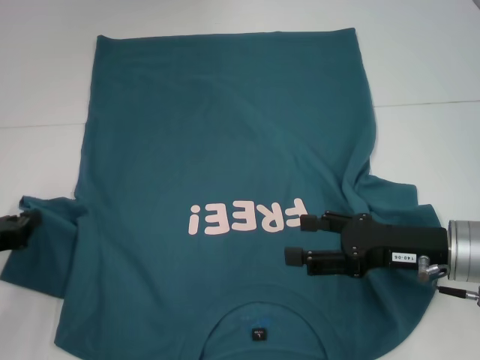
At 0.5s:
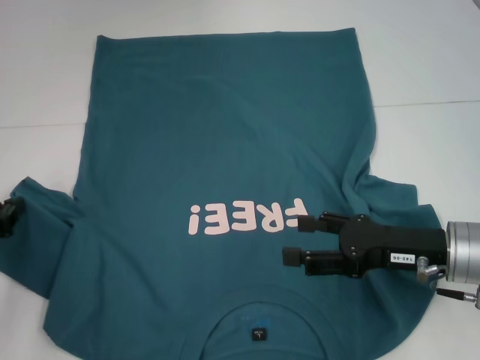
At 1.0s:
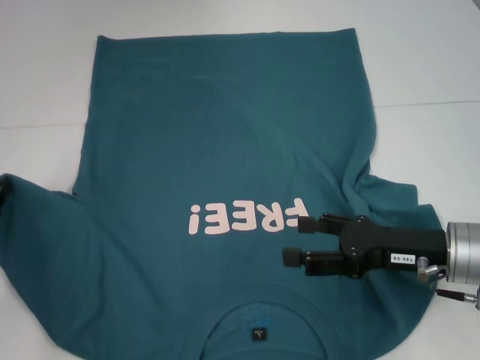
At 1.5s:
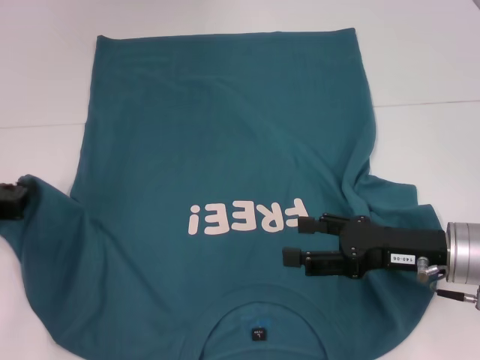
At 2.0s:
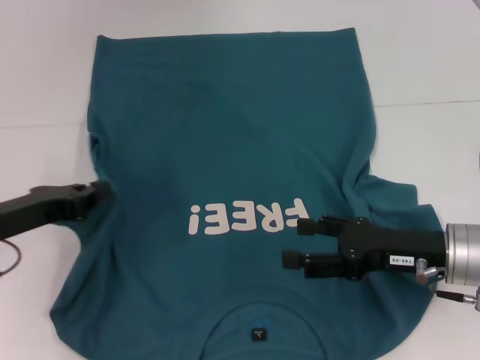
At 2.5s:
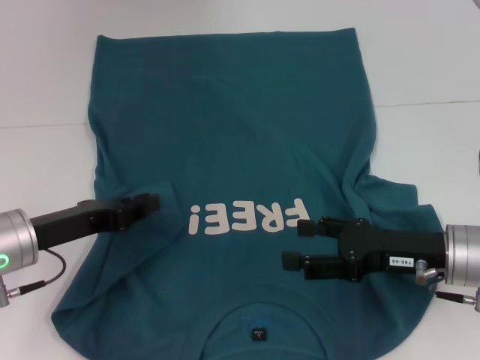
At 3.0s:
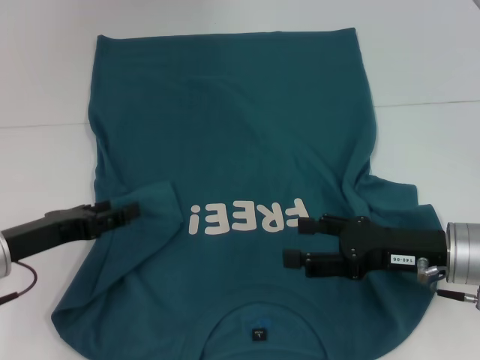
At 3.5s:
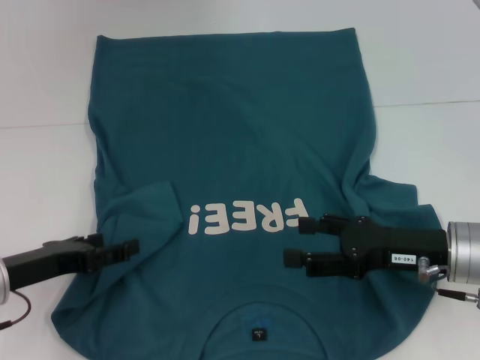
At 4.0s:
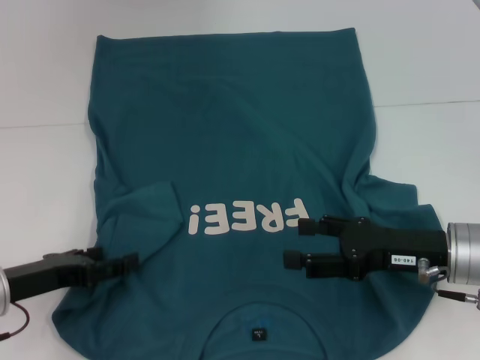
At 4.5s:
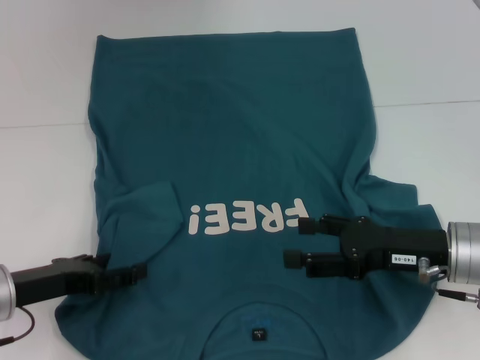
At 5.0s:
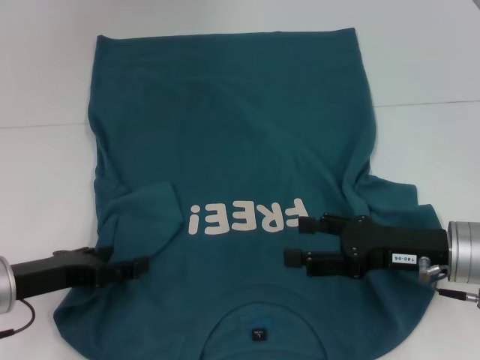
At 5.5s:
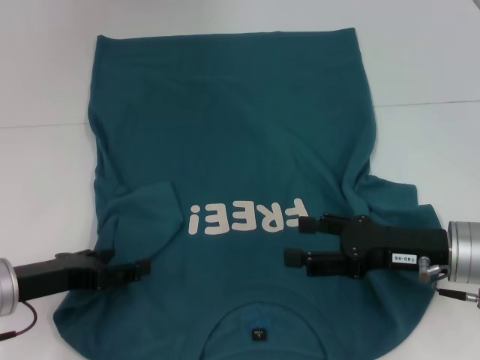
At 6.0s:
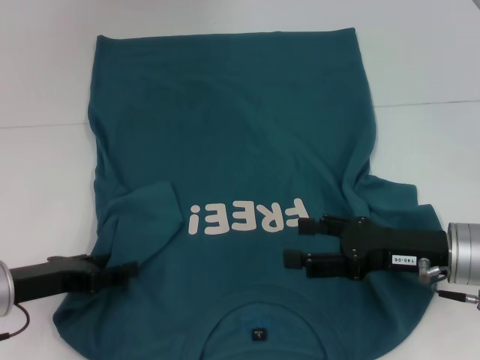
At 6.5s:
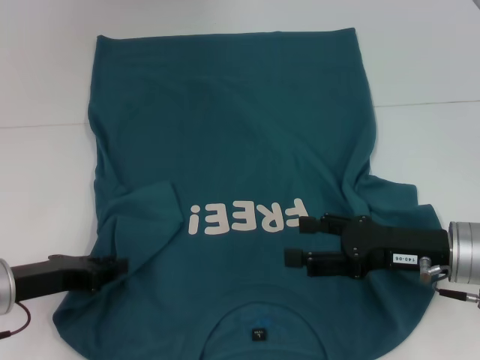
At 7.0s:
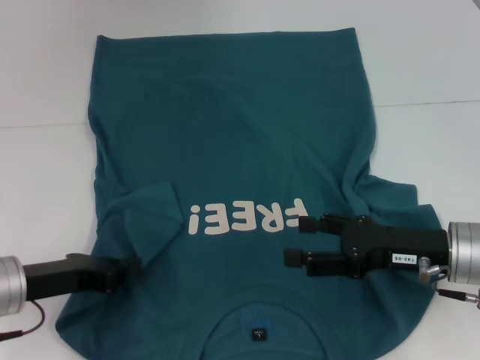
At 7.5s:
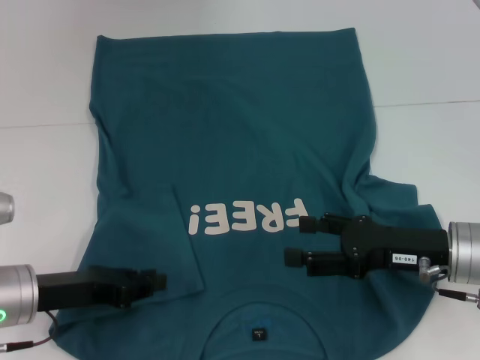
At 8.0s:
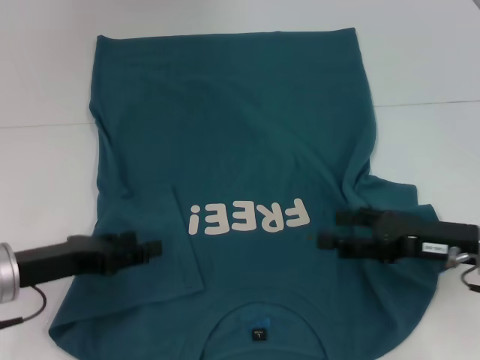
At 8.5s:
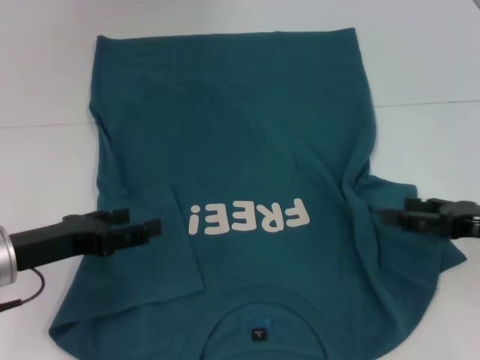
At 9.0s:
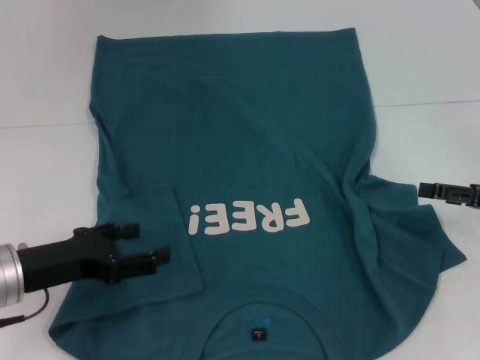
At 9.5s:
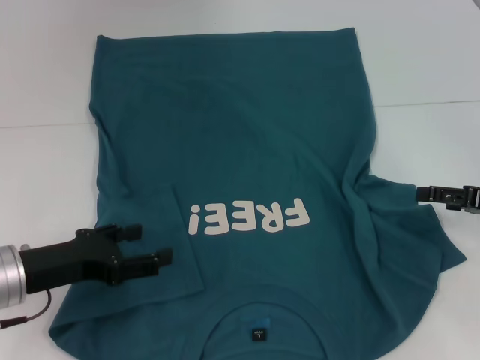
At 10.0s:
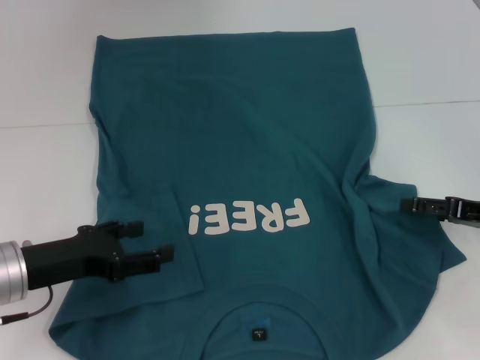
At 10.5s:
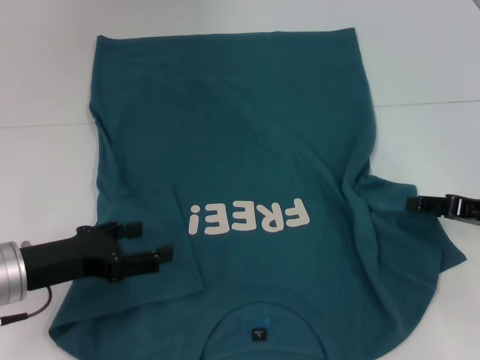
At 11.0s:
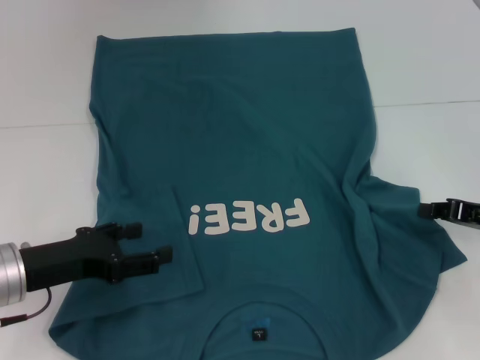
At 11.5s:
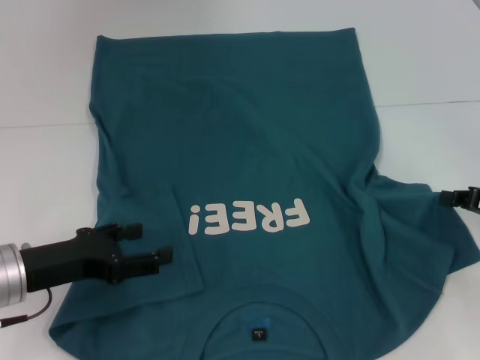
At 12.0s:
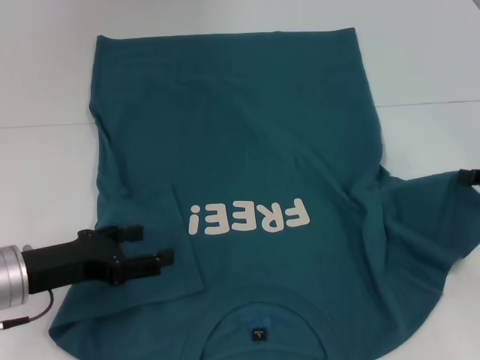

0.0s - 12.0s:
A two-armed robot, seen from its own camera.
Step, 0.0s - 7.5s: Fold the bottom left sleeve with your left hand.
0.0s - 2.0s: The left gripper is displaced to the right by roughly 5 cm.
2.0s - 4.0s: The left gripper ends up about 5 cm from where it was, and opens up.
4.0s - 6.0s: The grippers make only small movements.
6.0s - 8.0s: The left gripper closes its fingers.
8.0s - 10.0s: The left gripper opens its fingers. The right gripper goes approximately 10 cm to the right.
10.0s - 12.0s: The right gripper closes up.

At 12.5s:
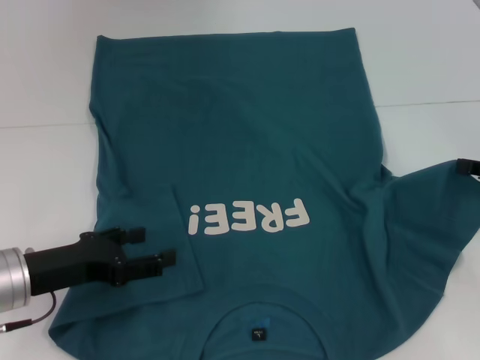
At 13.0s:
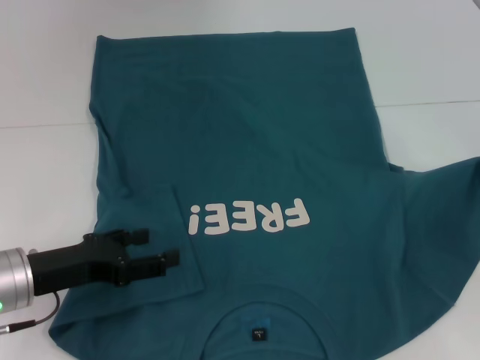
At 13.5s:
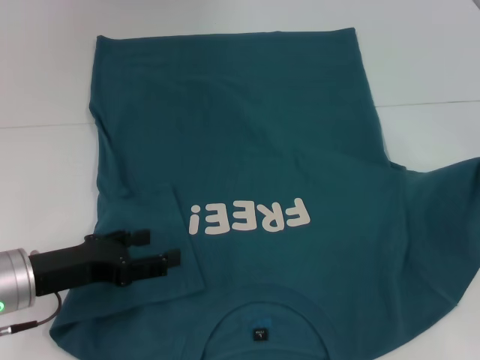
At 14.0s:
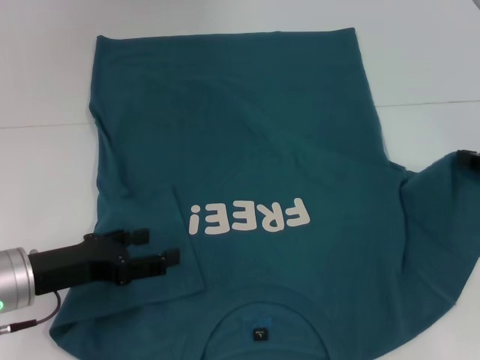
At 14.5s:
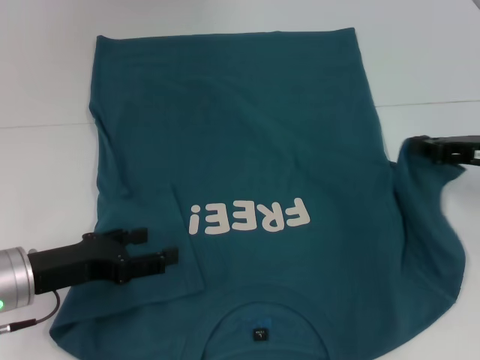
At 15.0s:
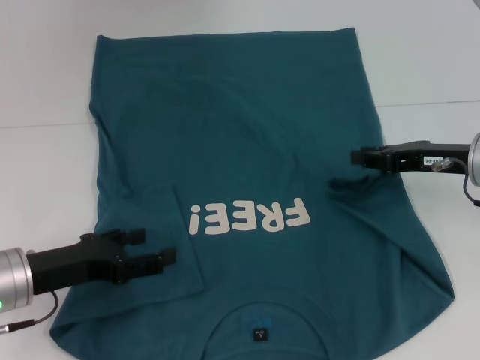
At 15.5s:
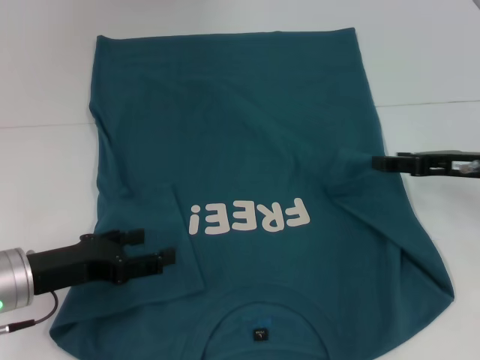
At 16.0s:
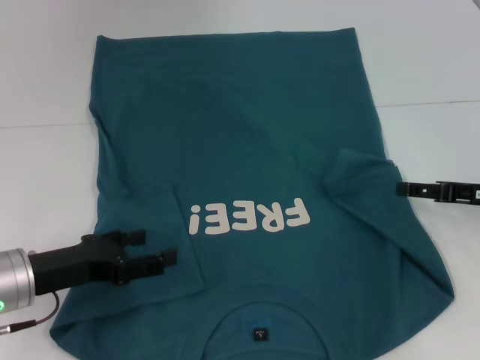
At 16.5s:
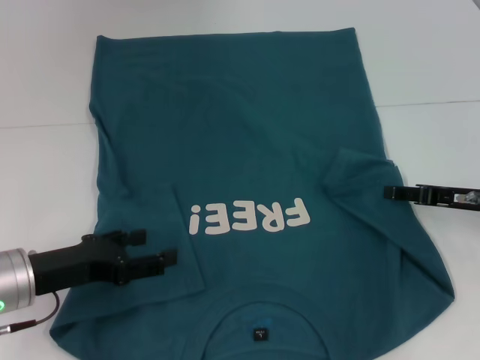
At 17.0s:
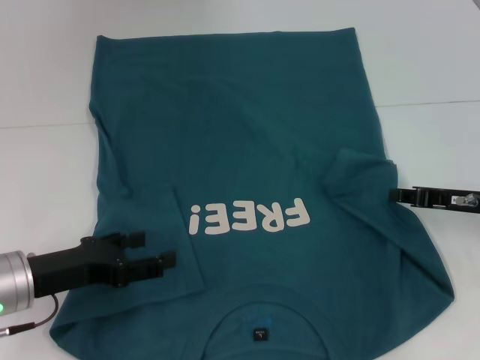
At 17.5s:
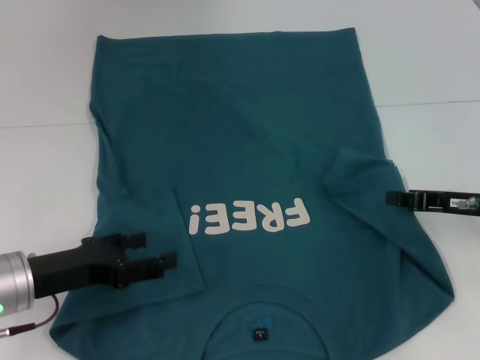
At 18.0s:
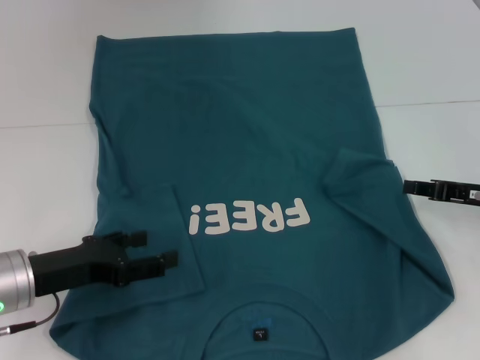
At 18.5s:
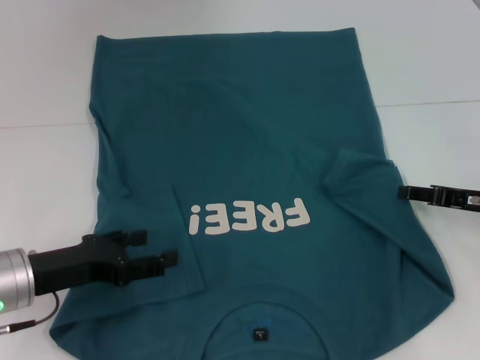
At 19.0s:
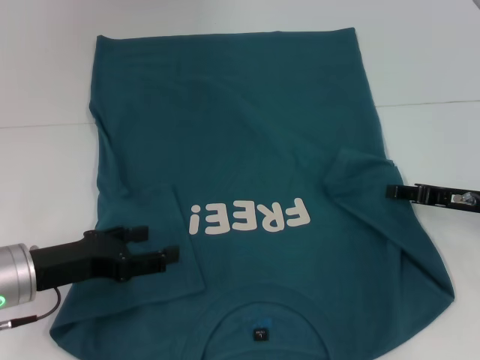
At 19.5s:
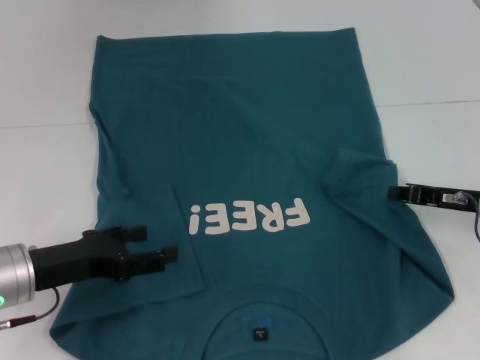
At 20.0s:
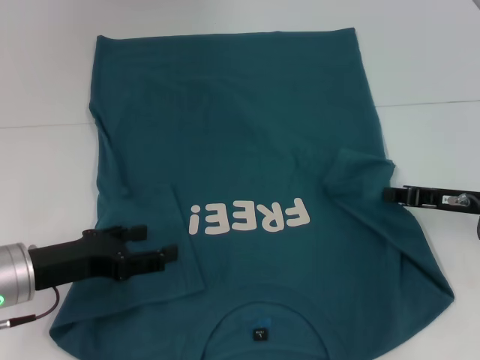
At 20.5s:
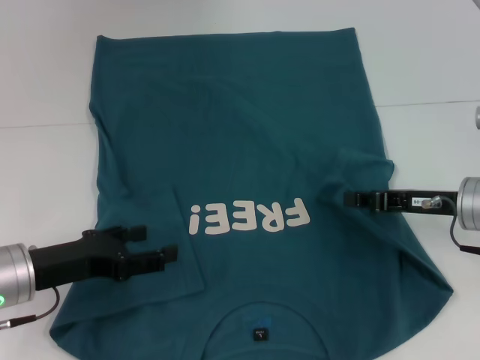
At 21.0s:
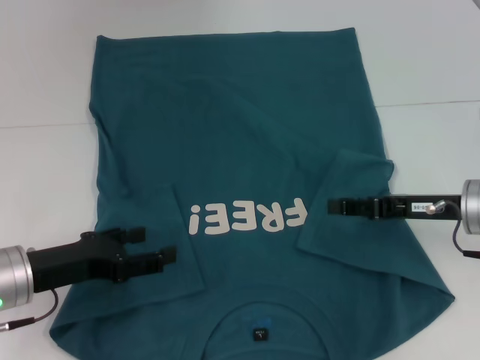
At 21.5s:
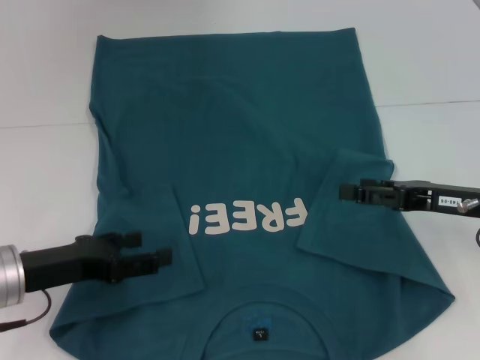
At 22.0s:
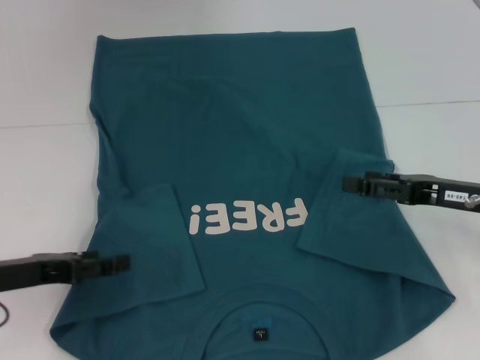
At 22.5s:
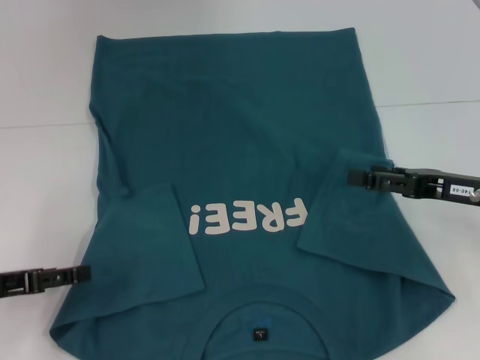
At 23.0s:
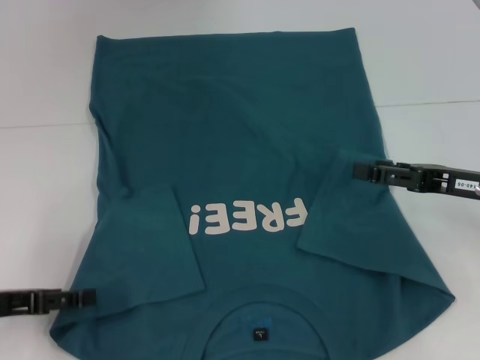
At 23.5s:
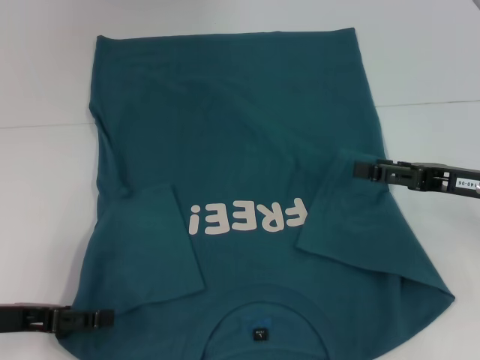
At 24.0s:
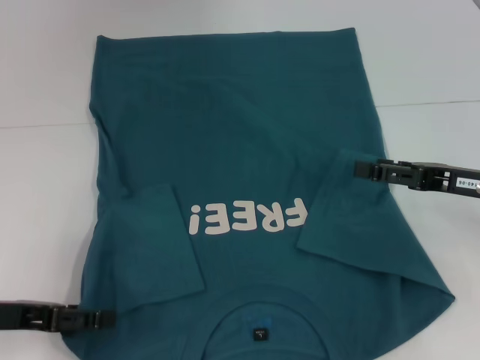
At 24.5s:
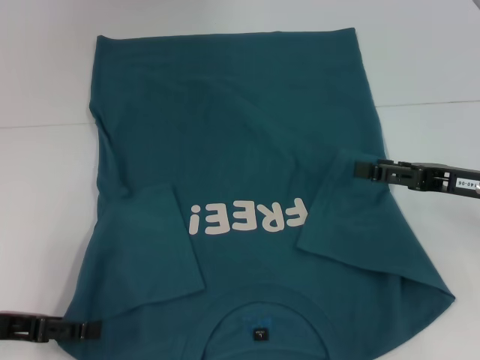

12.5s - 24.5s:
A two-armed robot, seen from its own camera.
Step, 12.5s - 21.0s: Fold the bottom right sleeve to the right.
12.5s - 14.5s: The right gripper moves about 5 cm.
14.5s - 16.5s: The right gripper shifts about 5 cm downward, and opens its fingers.
18.5s - 20.5s: The right gripper is displaced to the left by some 5 cm, and closes its fingers.
20.5s - 22.5s: The left gripper is displaced to the left by approximately 5 cm, while the right gripper opens its fingers.
22.5s - 24.5s: The grippers move only a little.

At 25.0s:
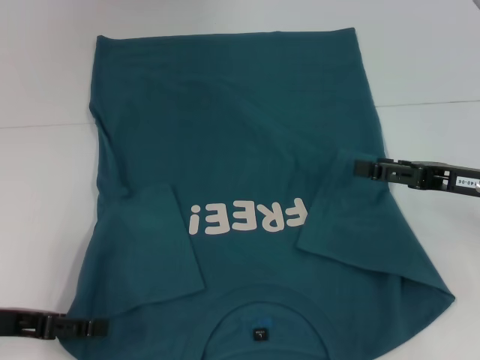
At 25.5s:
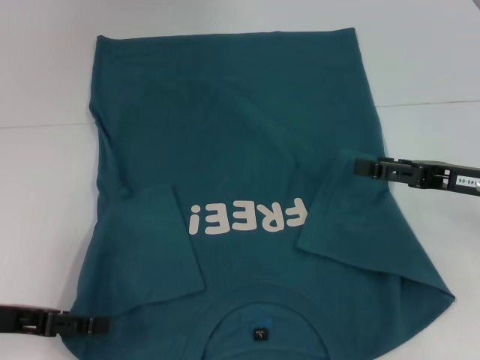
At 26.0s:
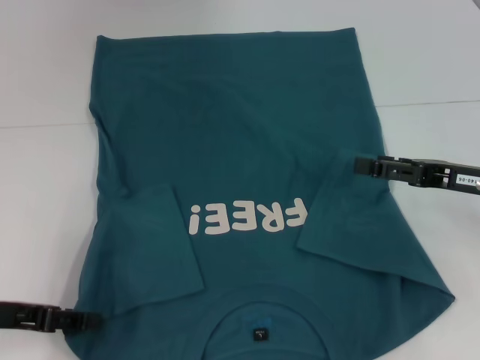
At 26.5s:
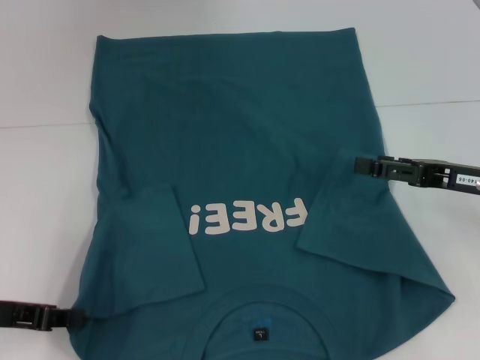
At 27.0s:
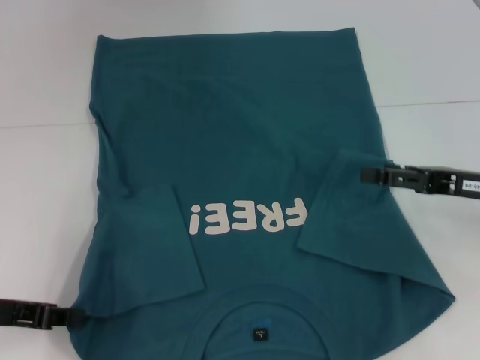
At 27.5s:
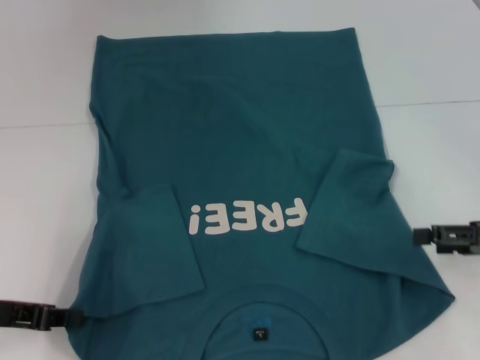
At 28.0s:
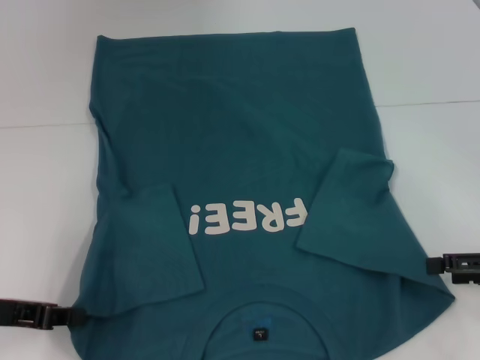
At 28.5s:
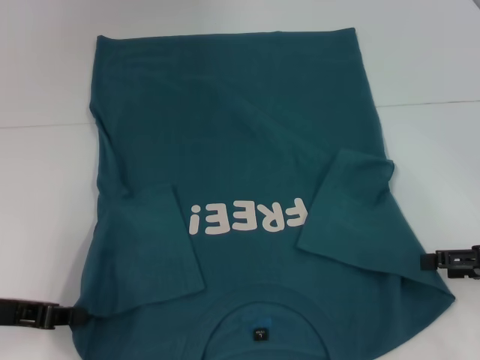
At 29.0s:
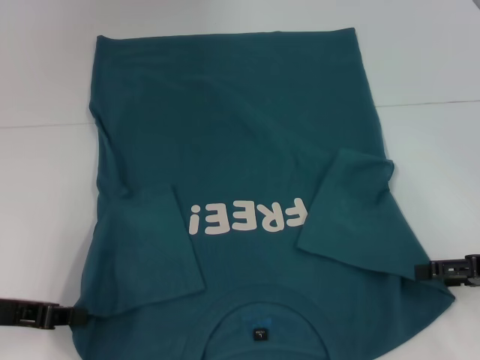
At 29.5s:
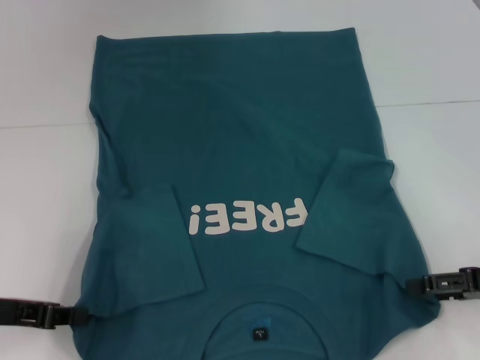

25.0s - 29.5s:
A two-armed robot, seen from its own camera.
25.0s - 27.0s: The left gripper closes up.
27.0s - 29.5s: The right gripper moves backward, about 5 cm.
